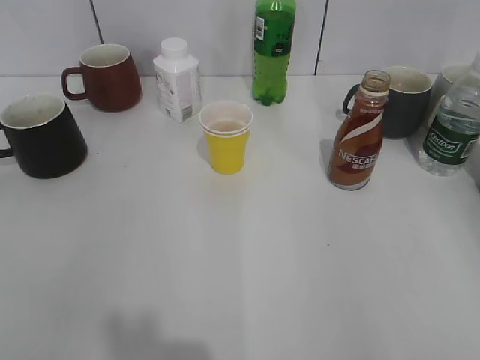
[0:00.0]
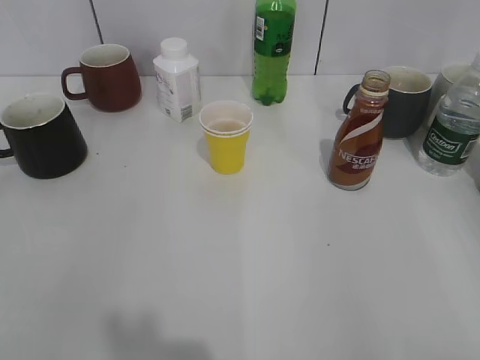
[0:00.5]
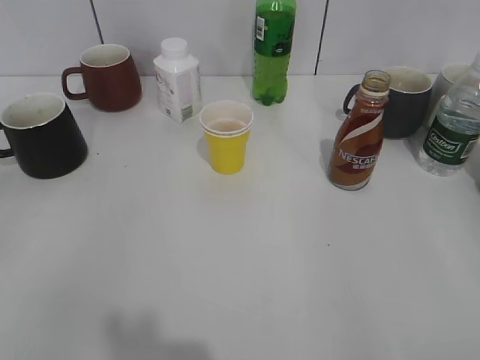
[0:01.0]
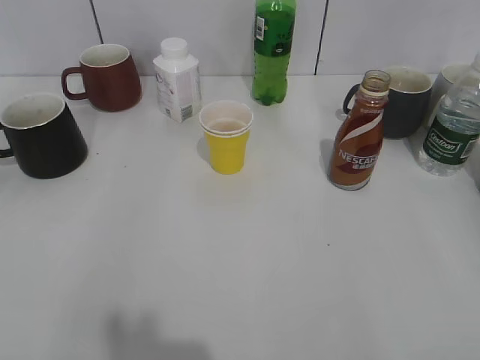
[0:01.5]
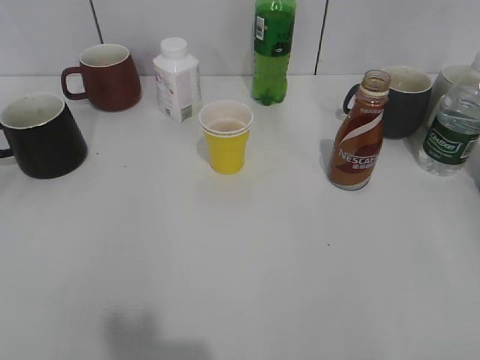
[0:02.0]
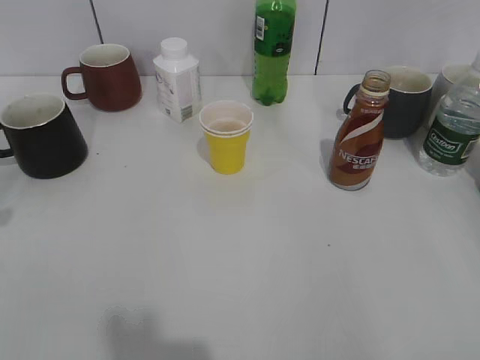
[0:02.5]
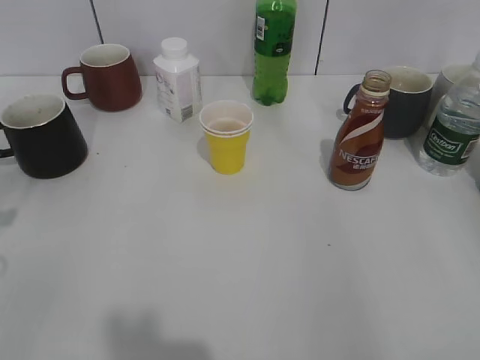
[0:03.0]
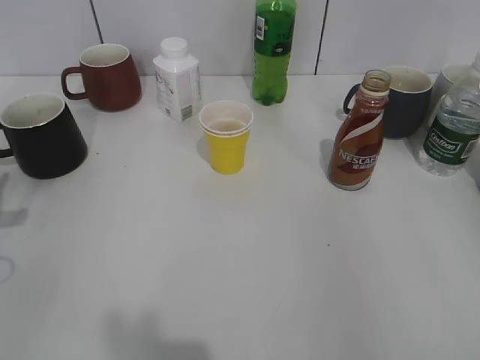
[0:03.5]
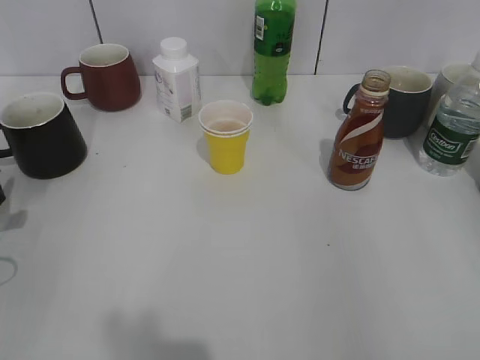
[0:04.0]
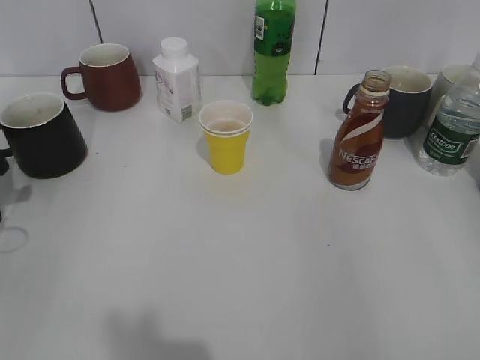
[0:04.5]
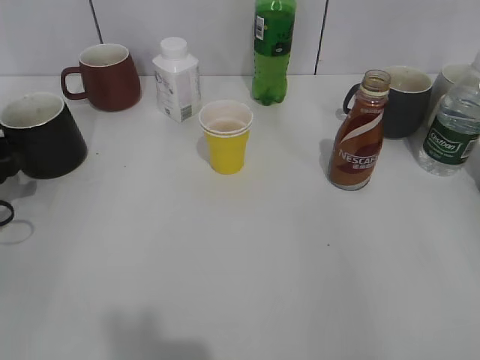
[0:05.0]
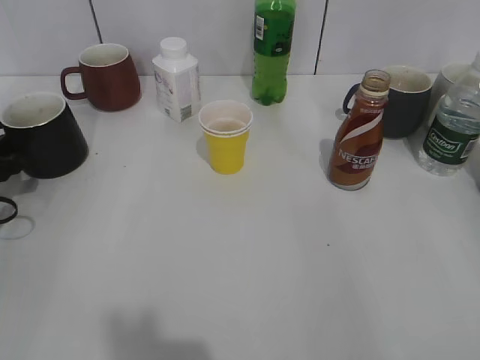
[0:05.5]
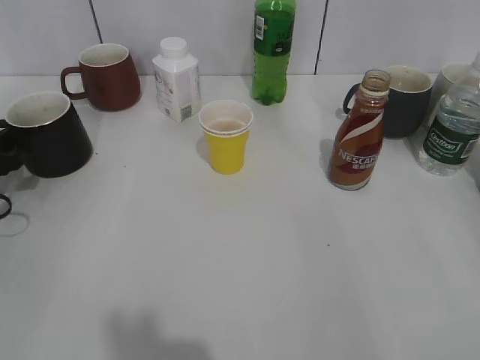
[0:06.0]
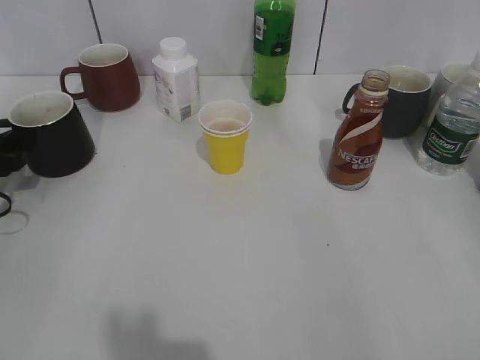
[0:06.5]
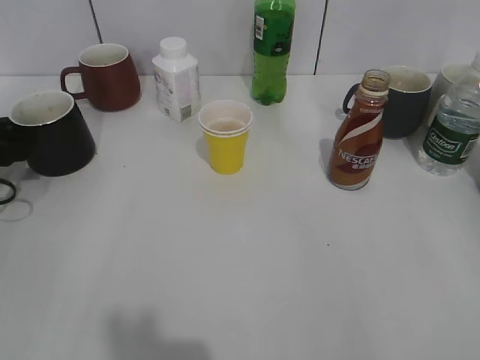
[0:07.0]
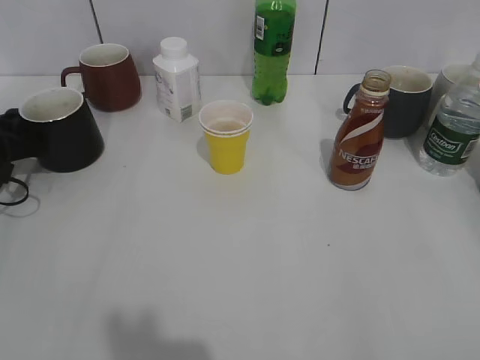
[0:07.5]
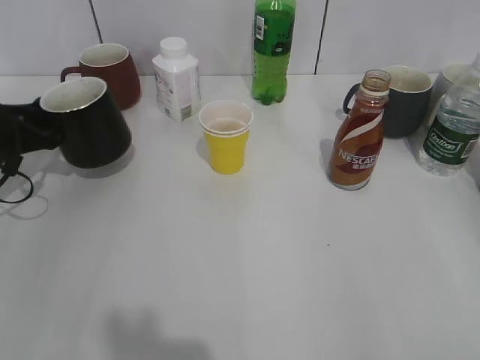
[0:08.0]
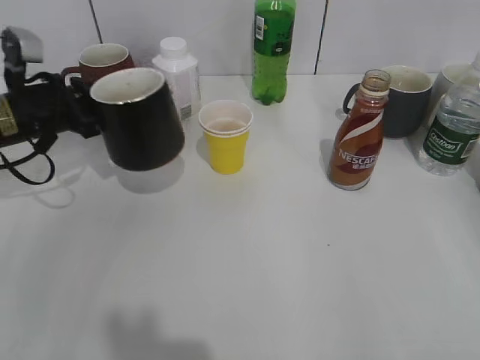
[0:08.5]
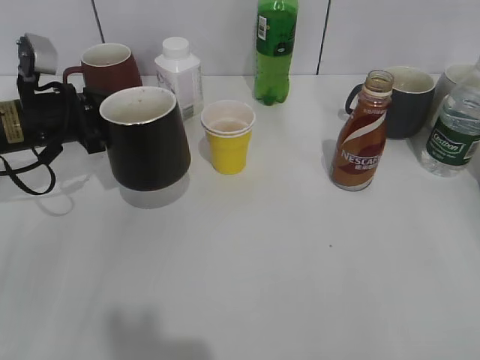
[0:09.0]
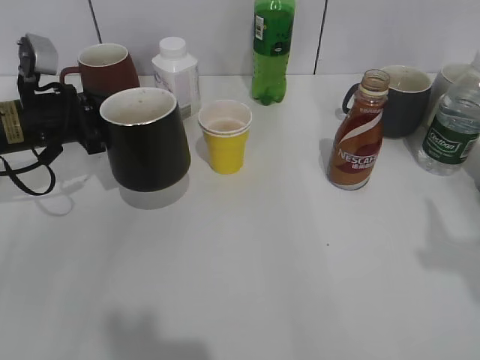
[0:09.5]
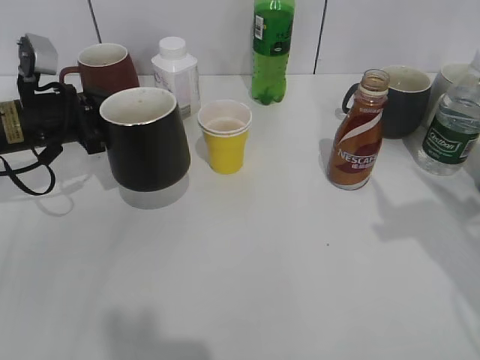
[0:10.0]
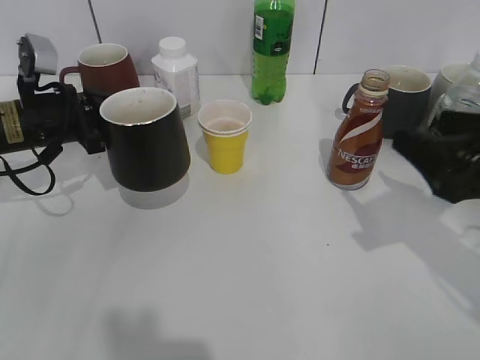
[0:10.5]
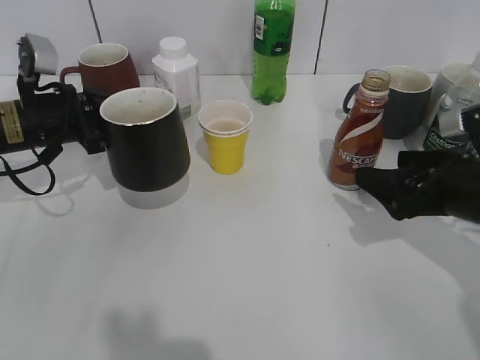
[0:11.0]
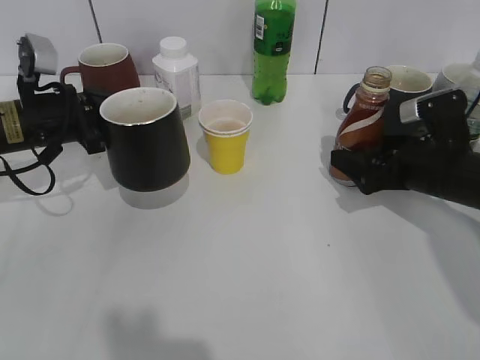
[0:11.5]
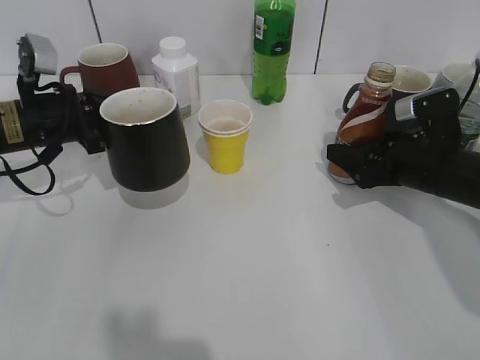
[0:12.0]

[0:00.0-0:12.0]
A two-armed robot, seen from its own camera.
Step, 0:08.0 to 0:08.5: Lift the black cup with left gripper.
0:02.0 to 0:04.0: The left gripper is displaced downward and forward by approximately 20 cm, and opens.
0:04.0 to 0:06.0: The left gripper shifts roughly 5 cm forward.
0:06.0 to 0:08.0: The left gripper changes place by about 5 cm, and closes up.
0:08.0 to 0:10.0: The left gripper travels to the right by roughly 5 cm. Meanwhile the right gripper shifts roughly 15 cm forward.
0:10.0 to 0:12.0: The right gripper goes some 20 cm downward and forward, and opens, then closes again.

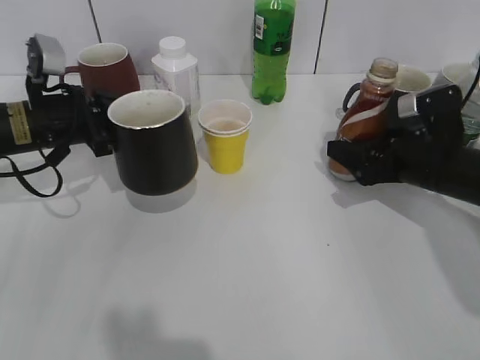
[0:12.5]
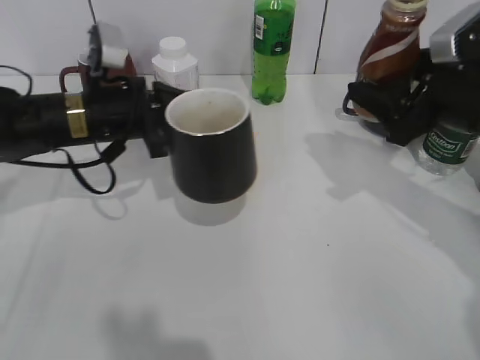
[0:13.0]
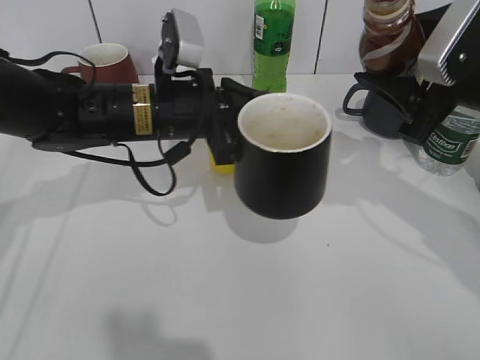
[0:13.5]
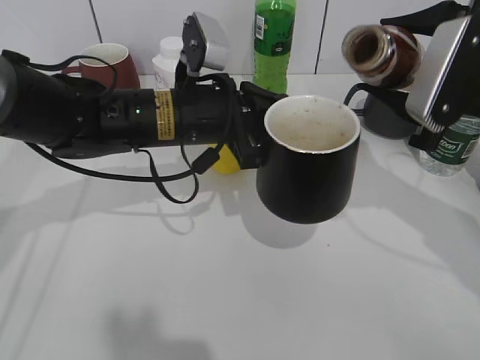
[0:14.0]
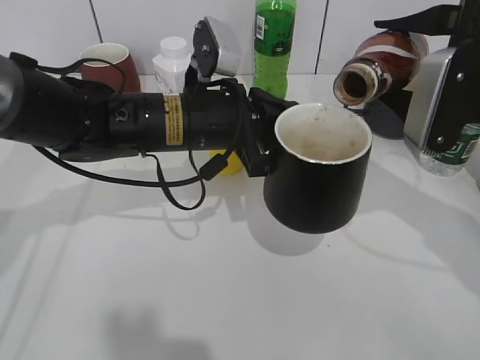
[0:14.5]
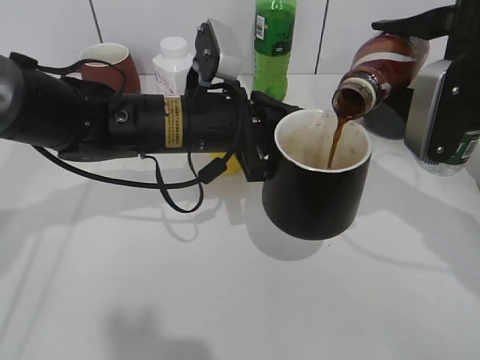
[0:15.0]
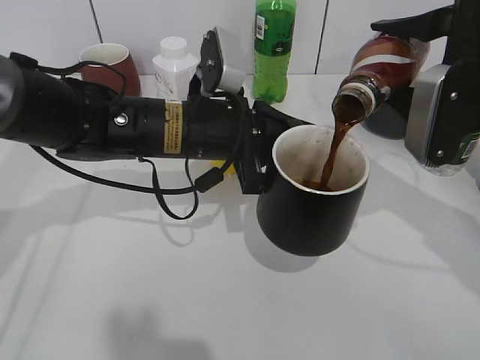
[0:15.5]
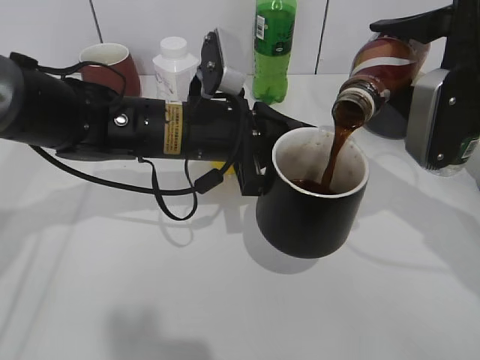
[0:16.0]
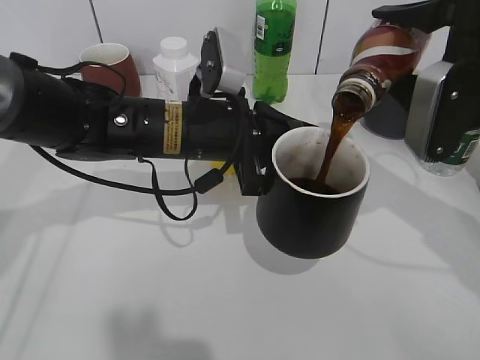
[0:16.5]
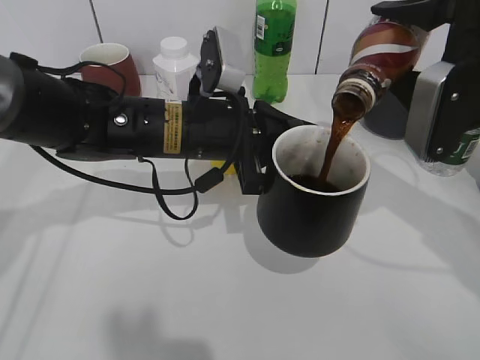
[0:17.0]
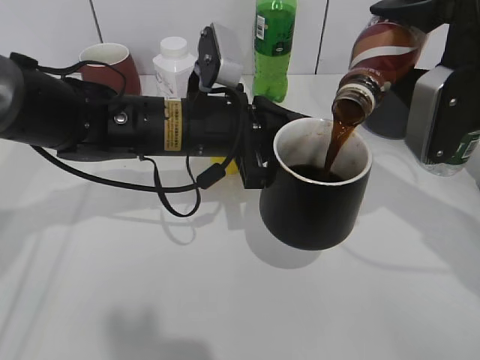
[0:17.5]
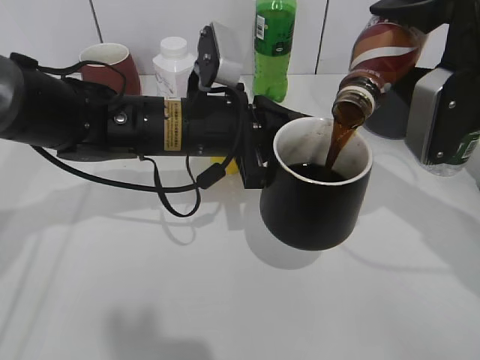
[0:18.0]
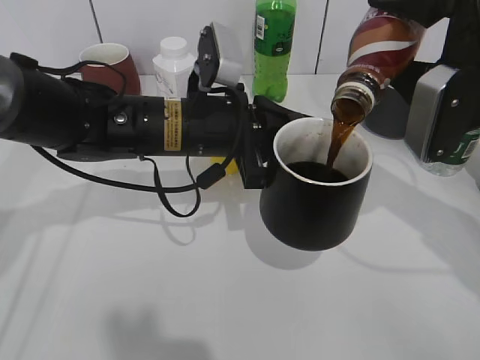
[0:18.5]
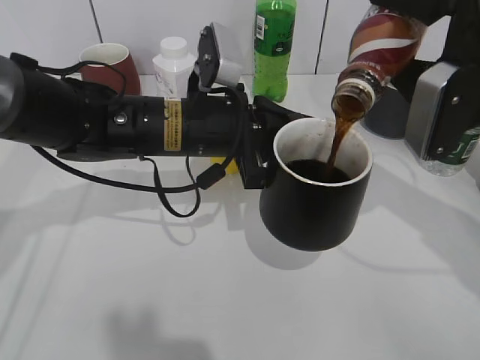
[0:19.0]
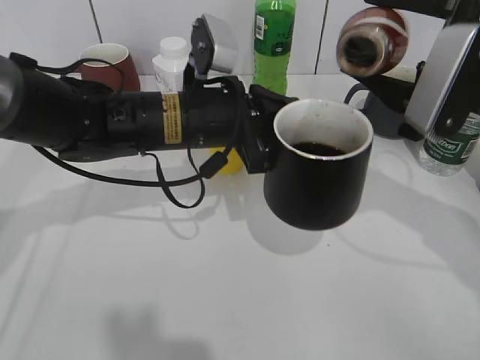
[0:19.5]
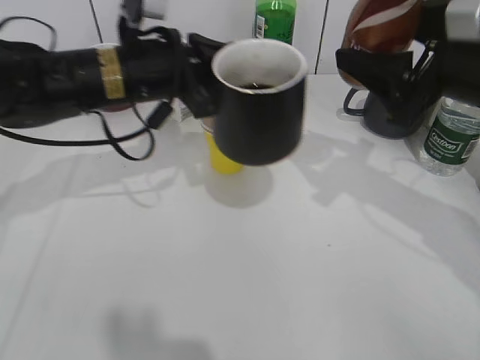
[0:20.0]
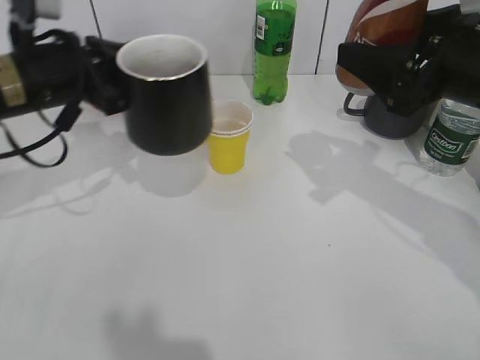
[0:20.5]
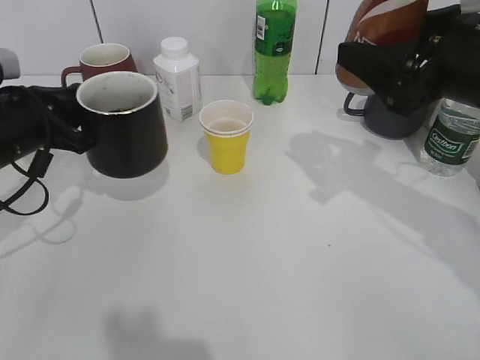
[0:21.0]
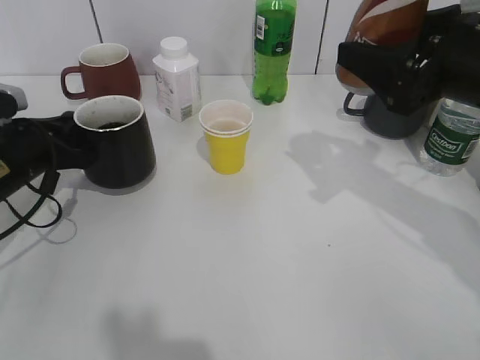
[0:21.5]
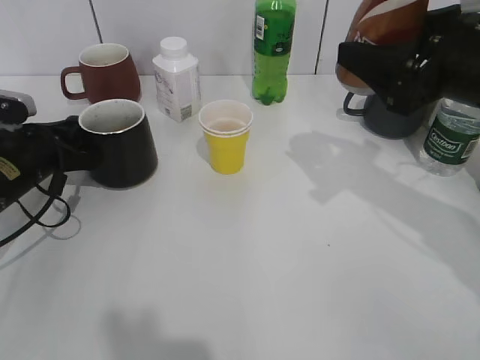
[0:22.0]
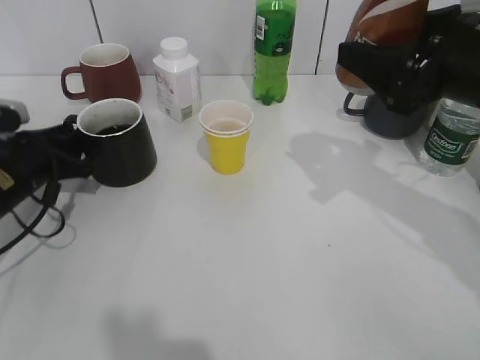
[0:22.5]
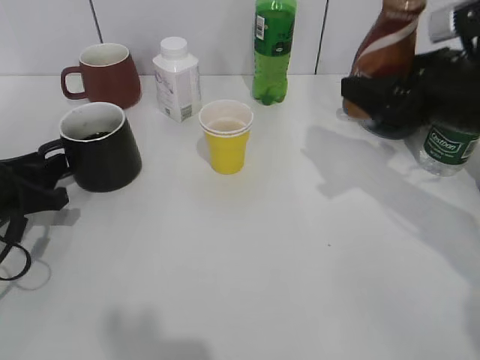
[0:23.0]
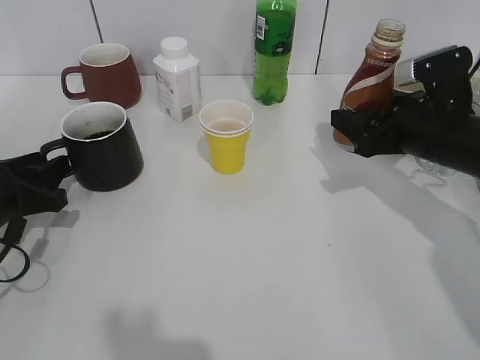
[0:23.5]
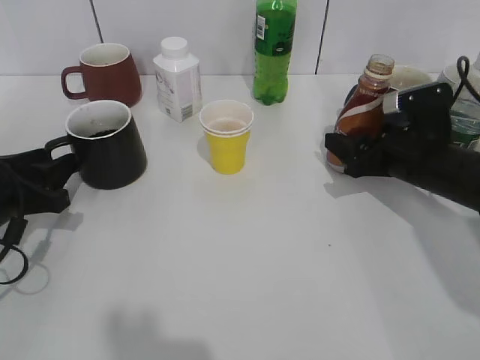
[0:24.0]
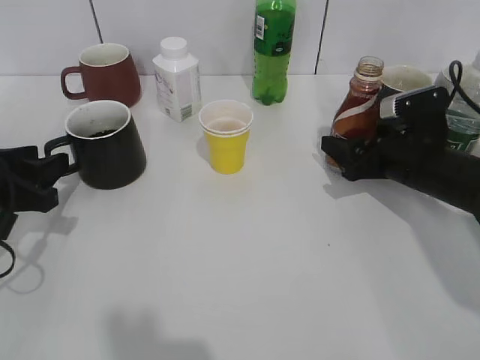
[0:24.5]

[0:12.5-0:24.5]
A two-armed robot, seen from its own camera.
Step, 0:12.5 to 0:19.5: Pour the coffee from bottle to cup with right gripper.
Step, 0:20.0 to 0:23.5: Place the black cup on the table with left gripper.
0:12.5 to 0:14.5: The right gripper shifts about 15 cm upward. The left gripper goes about 20 cm to the right.
0:14.5 to 0:16.5: The grippers move only a little.
0:16.5 to 0:18.5: There are only small adjustments of the grippers.
0:18.5 to 0:20.5: The left gripper travels to the left by some 15 cm.
0:20.5 to 0:22.5: The left gripper heads downward and to the left, covering about 15 cm, and opens its fingers.
0:22.5 to 0:24.5: The right gripper heads downward, covering about 15 cm, and opens up. The left gripper shifts some 5 cm backward.

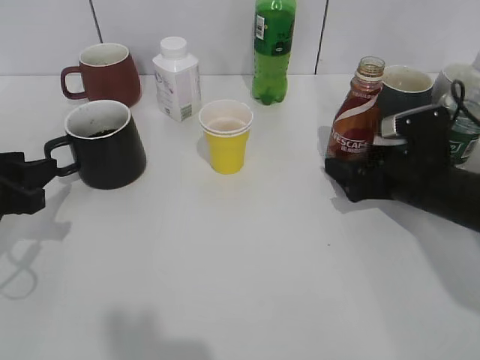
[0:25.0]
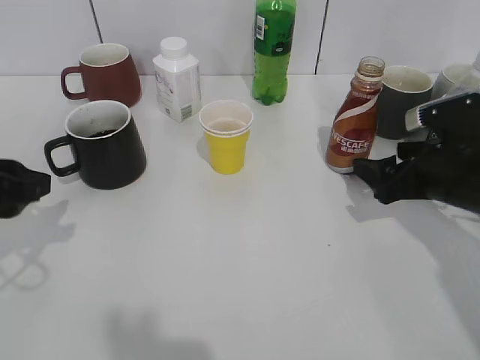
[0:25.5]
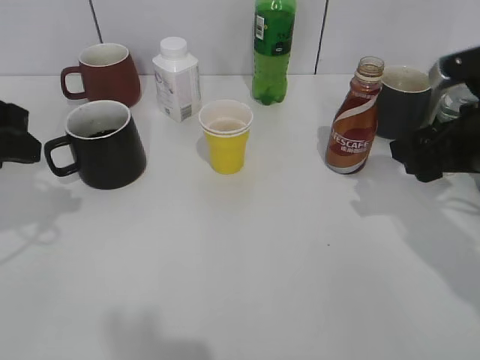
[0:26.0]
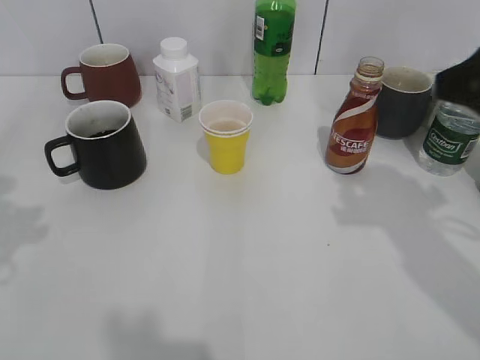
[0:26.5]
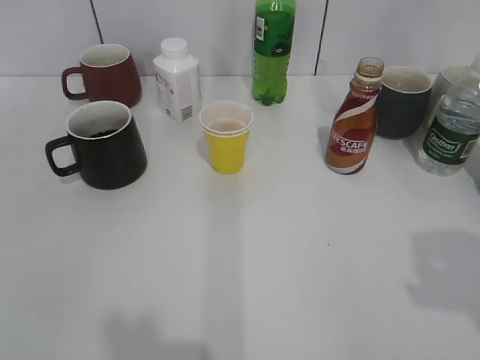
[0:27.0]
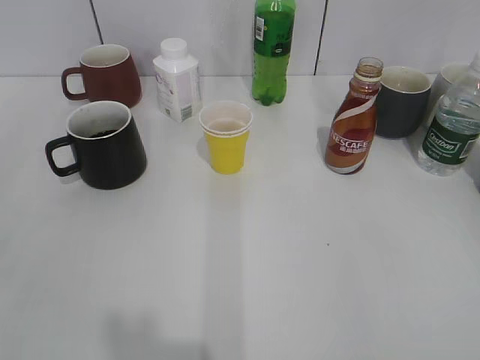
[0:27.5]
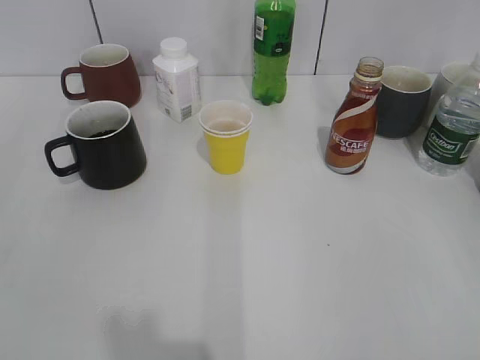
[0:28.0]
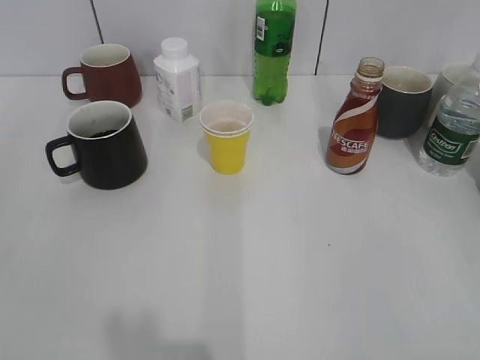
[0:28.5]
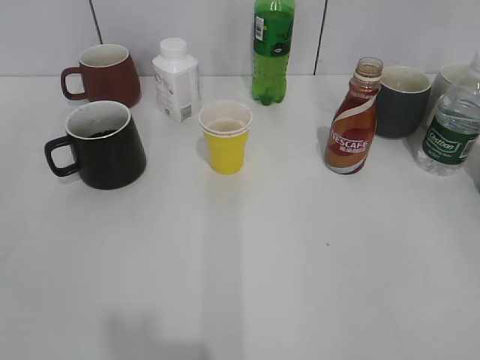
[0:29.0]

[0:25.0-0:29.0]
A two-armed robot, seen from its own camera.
0:25.0 to 0:27.0: The grippers both shift upward and backward by approximately 30 cm. The right gripper closes its fingers.
0:27.0 to 0:29.0: The right gripper is displaced backward and downward by about 10 cm.
